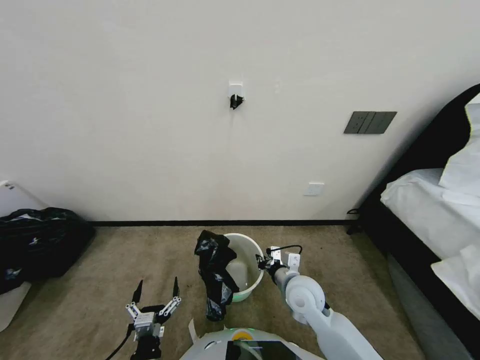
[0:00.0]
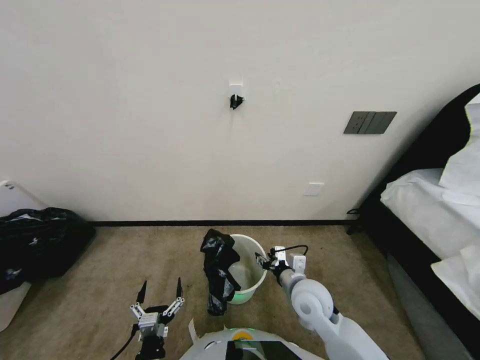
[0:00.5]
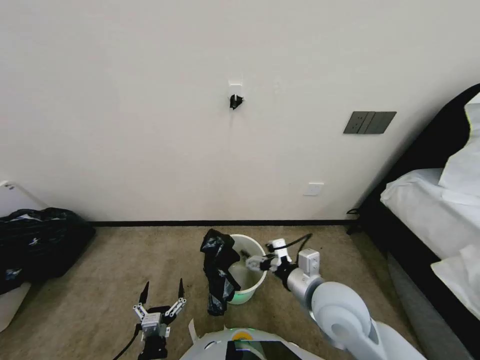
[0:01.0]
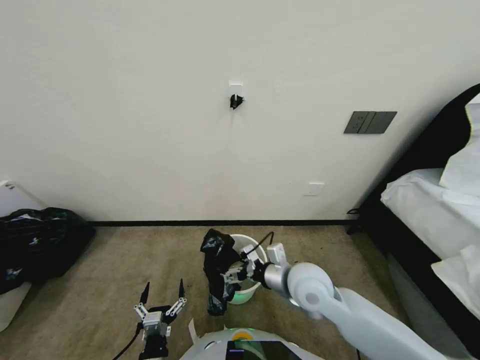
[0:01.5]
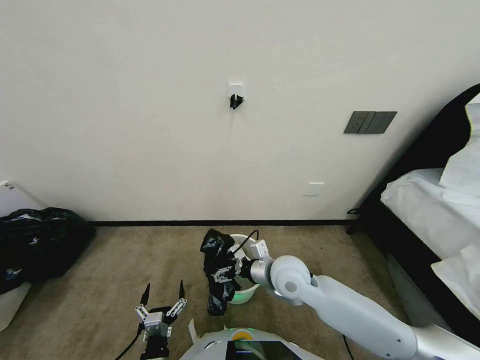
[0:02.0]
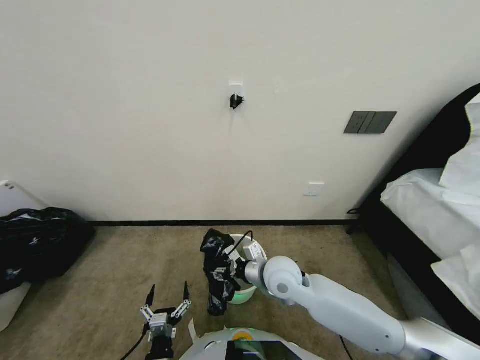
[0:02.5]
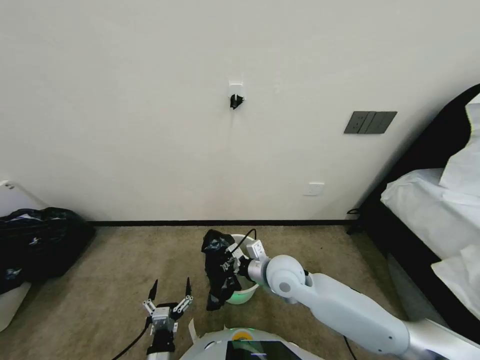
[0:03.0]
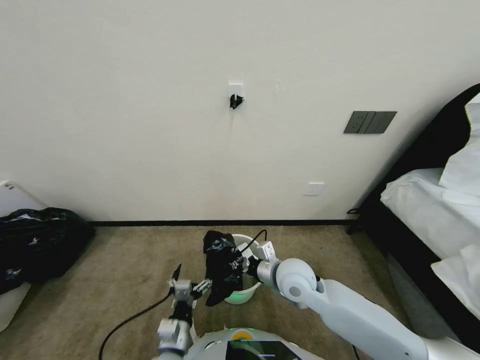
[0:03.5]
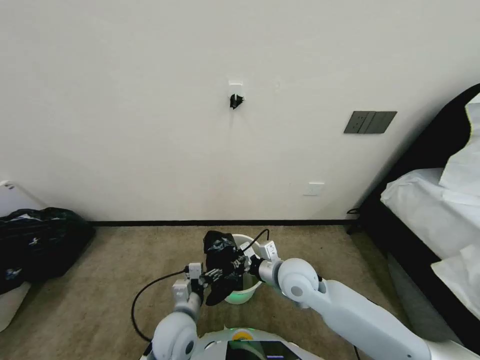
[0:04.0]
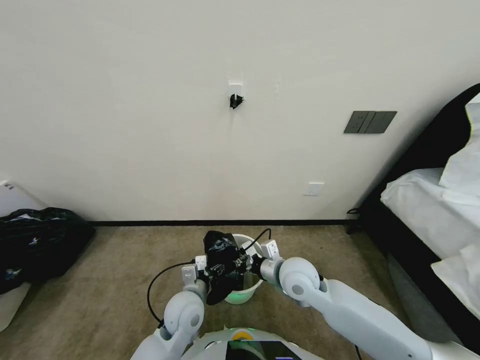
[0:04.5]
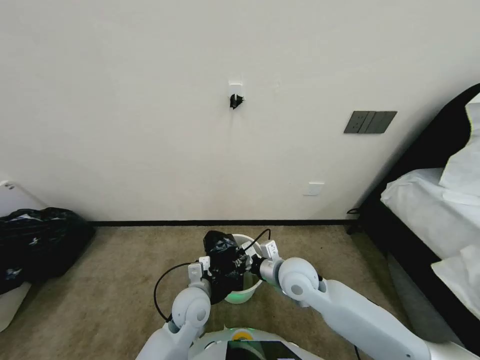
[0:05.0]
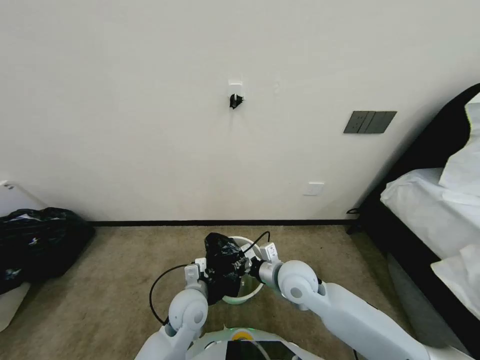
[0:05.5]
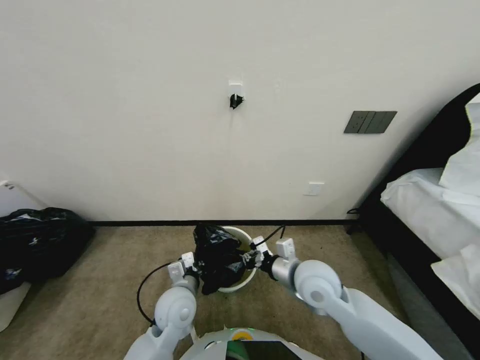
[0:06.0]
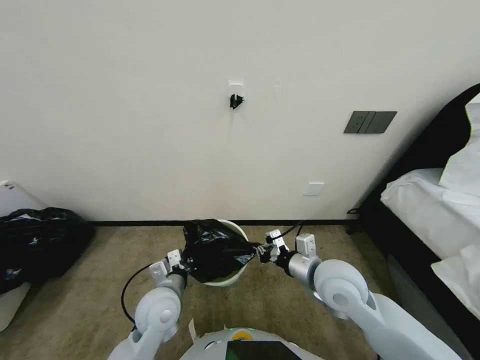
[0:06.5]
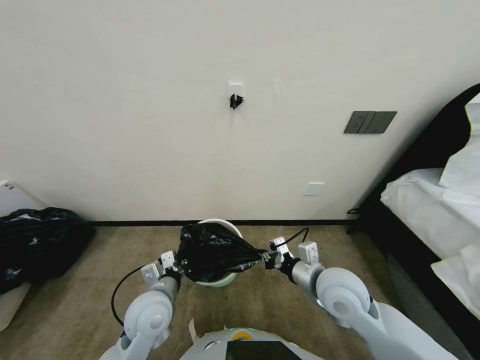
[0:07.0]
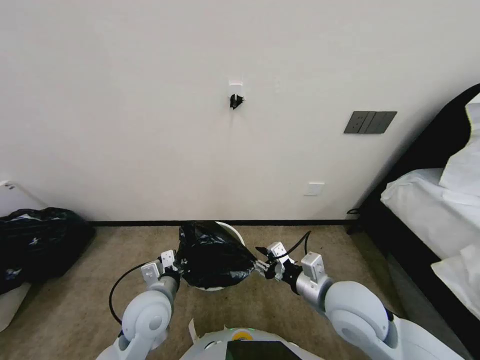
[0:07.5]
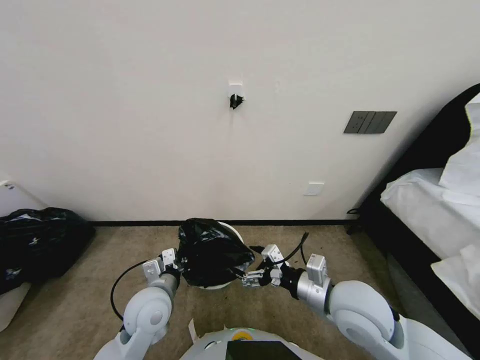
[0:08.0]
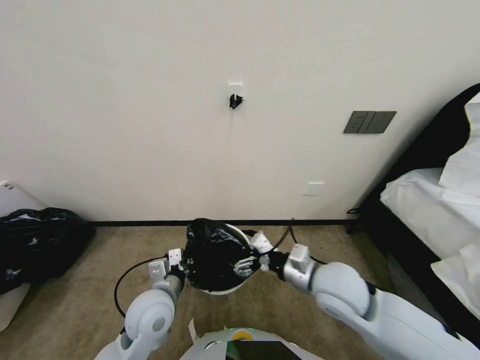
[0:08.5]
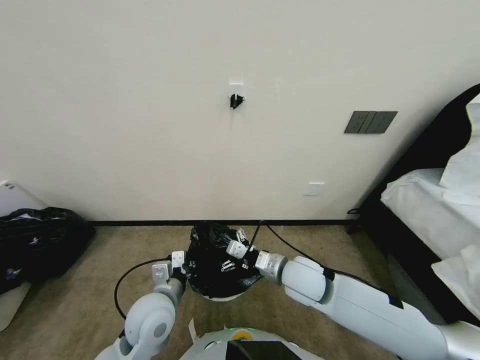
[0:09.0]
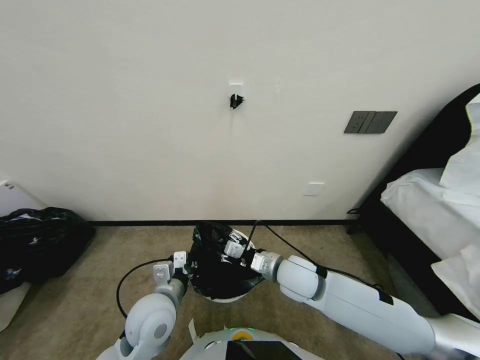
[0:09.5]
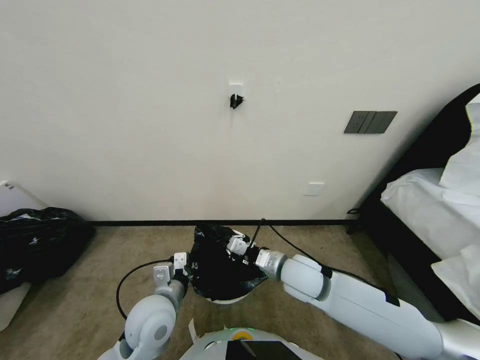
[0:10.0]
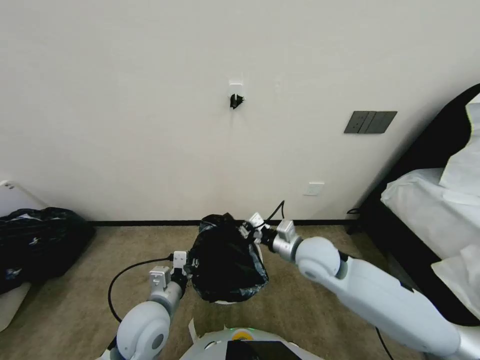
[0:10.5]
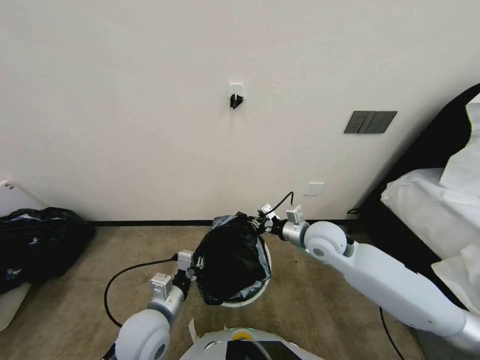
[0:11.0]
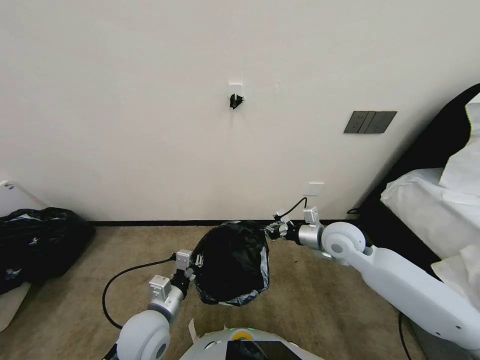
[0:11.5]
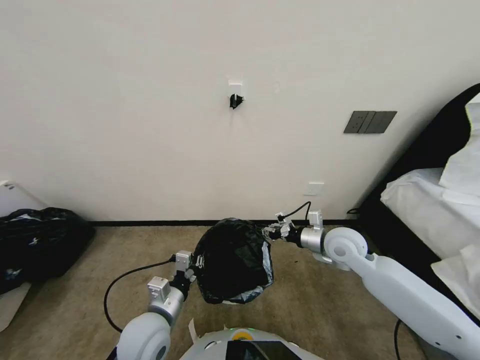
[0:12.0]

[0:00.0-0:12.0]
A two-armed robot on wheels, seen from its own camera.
Task of the whole recording: Place a trash bag onto the trash bin.
0:00.0 to 0:02.0: The right gripper shifts approximately 5 cm upward, and opens.
0:02.0 to 0:04.0: The left gripper is displaced forward and upward by about 15 cm, while the right gripper closes.
0:04.0 to 0:06.0: The left gripper is displaced forward by roughly 5 cm, and closes its fingers.
0:06.0 to 0:08.0: The left gripper travels to the left by approximately 5 cm. The right gripper travels backward and to the right by roughly 10 cm, and opens up.
0:08.0 to 0:10.0: The right gripper is displaced forward, to the left and downward by approximately 10 cm, and closes up.
0:10.0 to 0:12.0: The right gripper travels to the right and forward by about 15 cm.

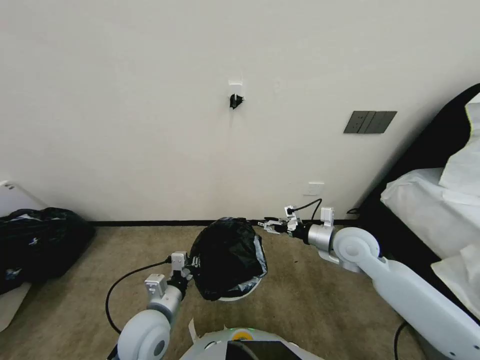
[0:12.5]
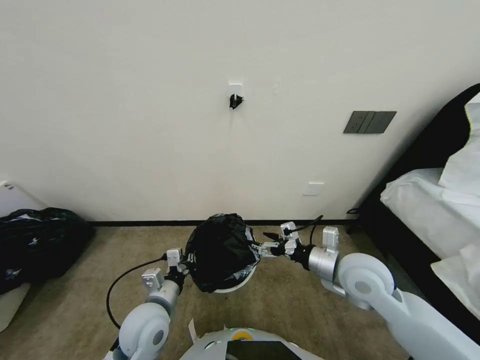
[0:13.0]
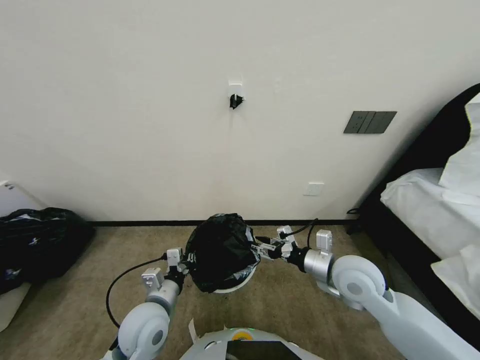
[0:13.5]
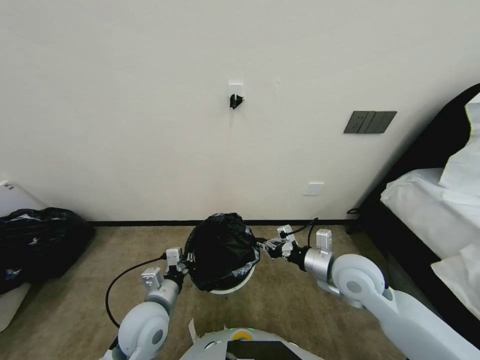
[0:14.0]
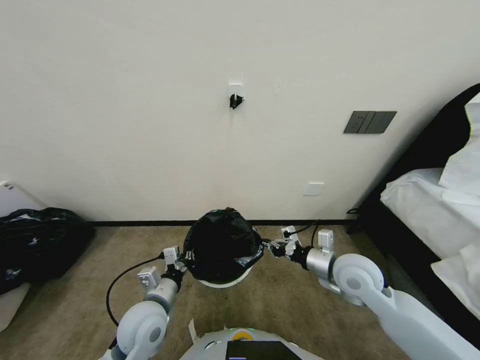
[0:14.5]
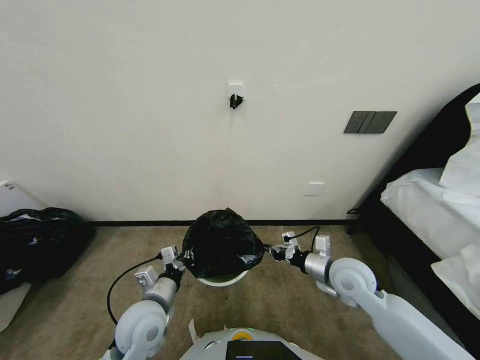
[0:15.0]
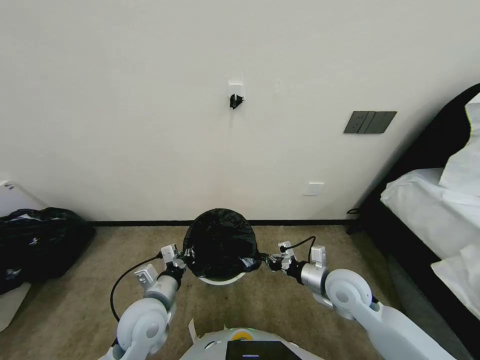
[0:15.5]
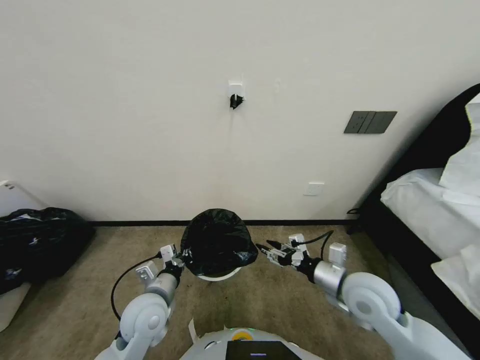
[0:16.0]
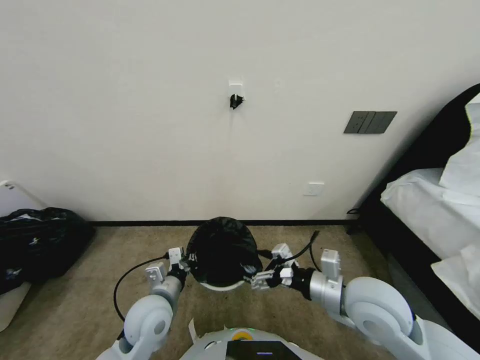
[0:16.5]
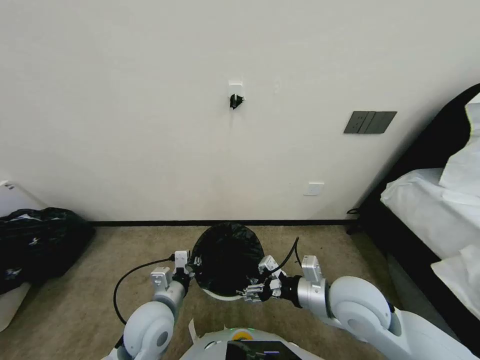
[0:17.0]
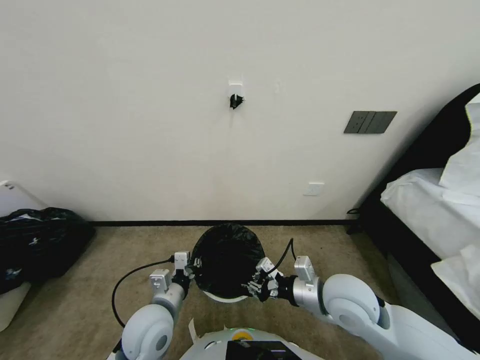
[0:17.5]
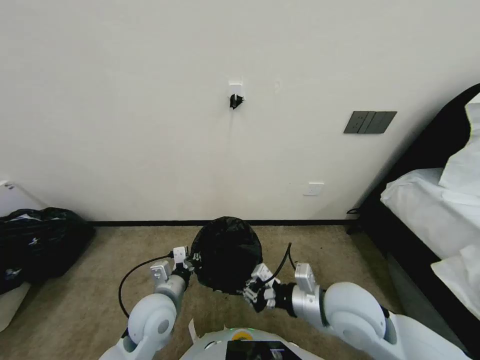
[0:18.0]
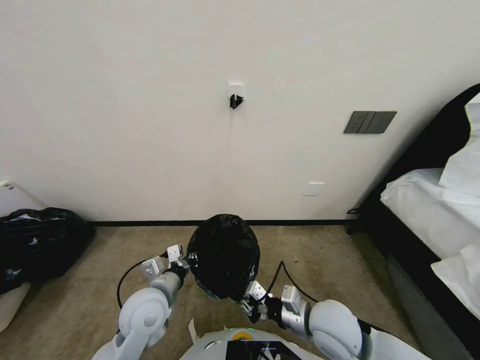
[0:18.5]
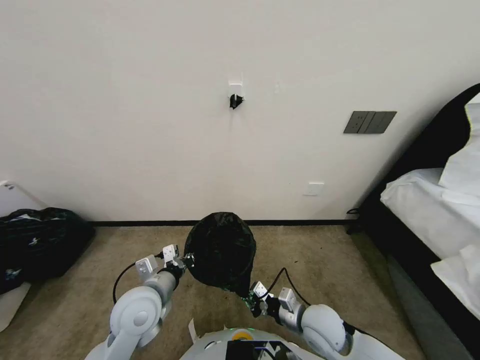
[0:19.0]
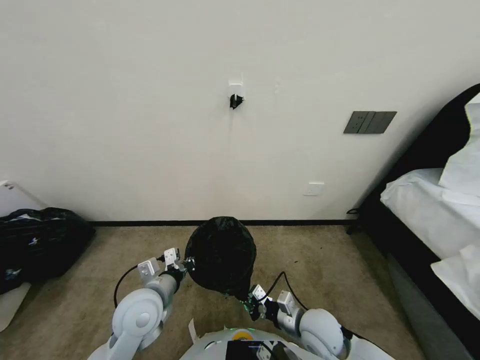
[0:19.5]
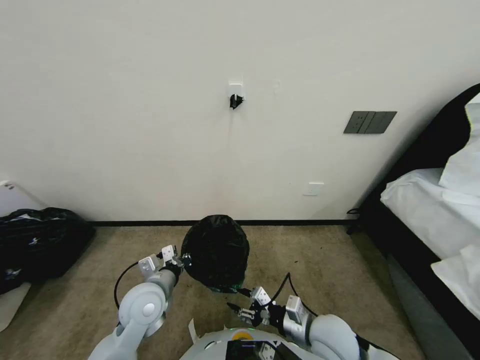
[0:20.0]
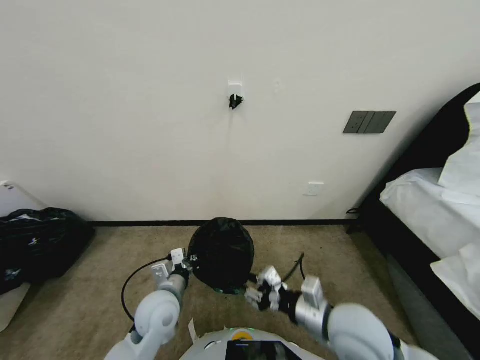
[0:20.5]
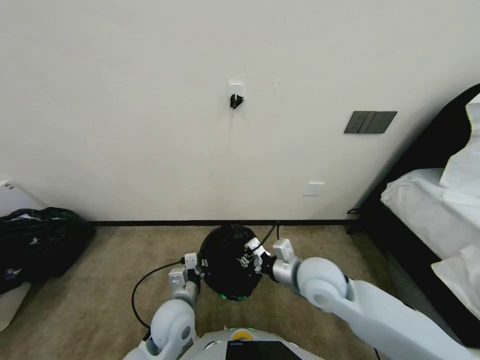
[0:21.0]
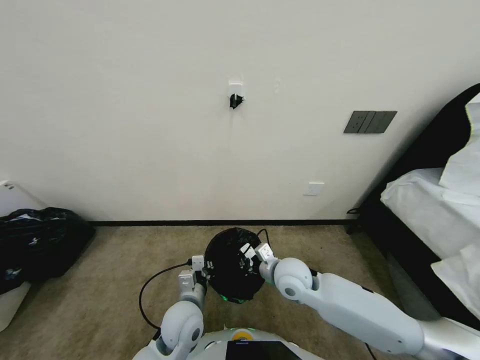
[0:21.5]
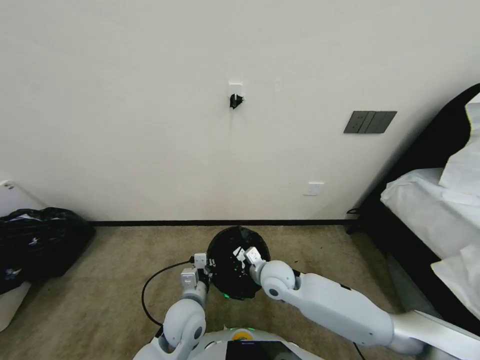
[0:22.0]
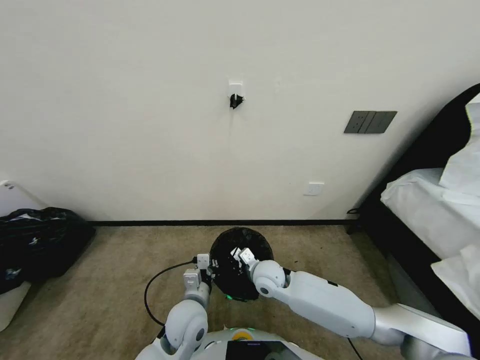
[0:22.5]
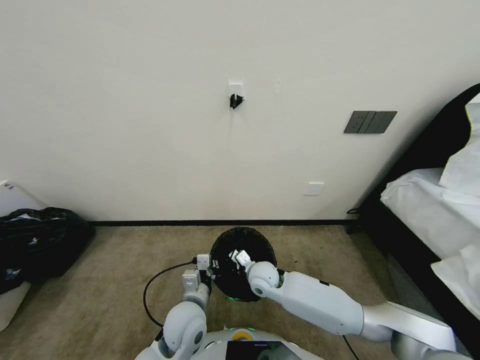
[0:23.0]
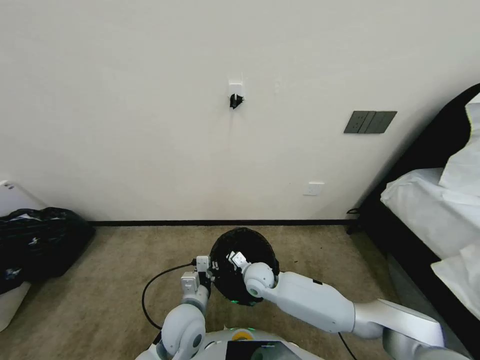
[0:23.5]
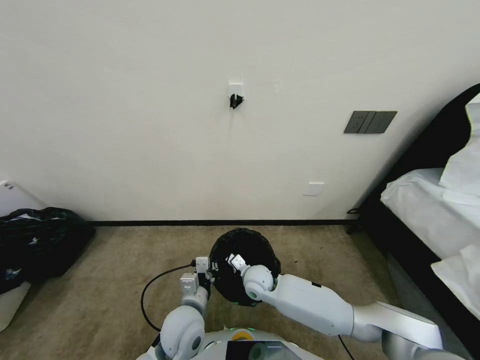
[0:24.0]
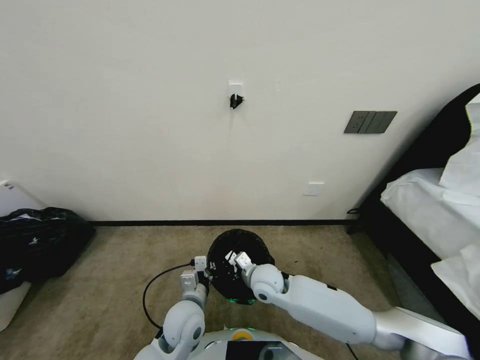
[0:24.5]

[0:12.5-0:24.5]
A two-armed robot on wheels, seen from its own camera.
Task of the whole recording: Place a trash bag onto the trash bin.
0:12.5 to 0:14.5: The right gripper travels backward by about 5 cm, and closes up.
0:14.5 to 0:16.5: The right gripper moves backward, about 5 cm, and opens up.
0:16.5 to 0:18.5: The right gripper heads downward and to the left, covering some 10 cm, and closes its fingers.
0:18.5 to 0:20.5: The right gripper moves some 10 cm downward and comes back, and opens up.
0:20.5 to 0:22.5: The right gripper heads forward, to the left and downward, covering some 20 cm, and closes up. Meanwhile the left gripper is displaced to the right by roughly 5 cm.
0:22.5 to 0:24.5: The grippers make only small movements.

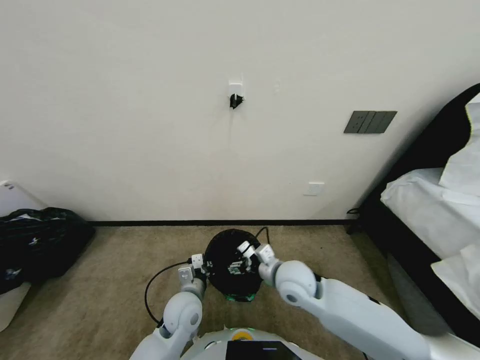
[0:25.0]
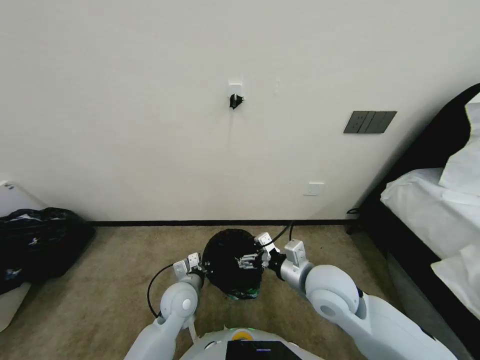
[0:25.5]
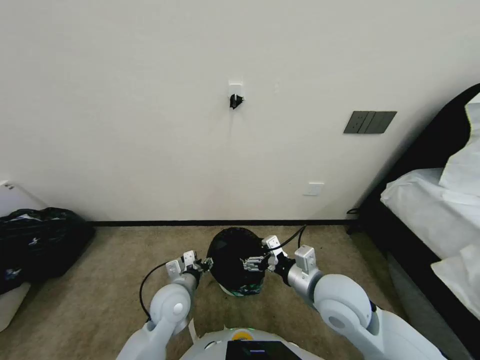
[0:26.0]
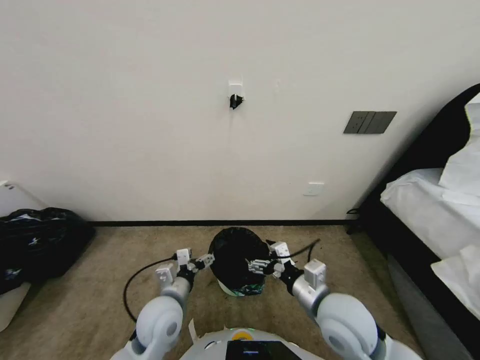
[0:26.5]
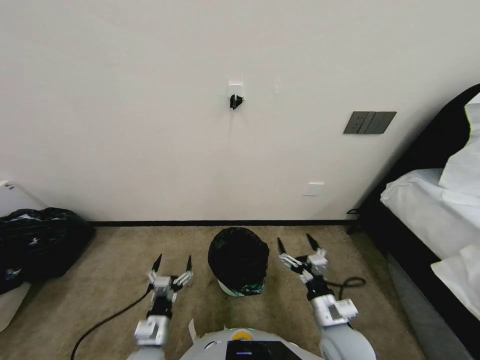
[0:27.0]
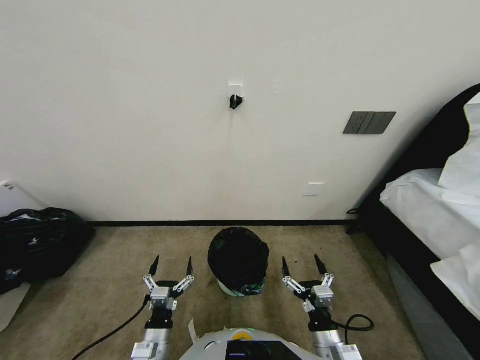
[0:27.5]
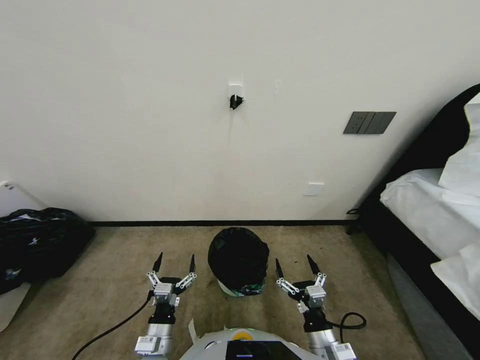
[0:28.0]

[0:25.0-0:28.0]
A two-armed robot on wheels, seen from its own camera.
Task of the whole recording: Place a trash bag onto the trash bin.
0:25.0 to 0:26.5: The left gripper heads upward, covering approximately 5 cm, and opens, while the right gripper goes roughly 15 cm backward, to the right and upward.
0:26.5 to 0:28.0: The right gripper travels downward and backward by roughly 20 cm. Meanwhile the left gripper travels backward and downward by some 15 cm.
